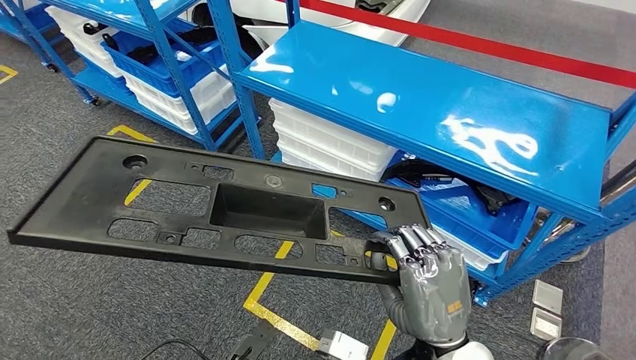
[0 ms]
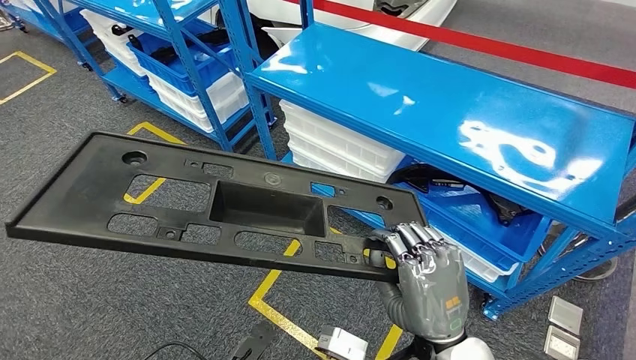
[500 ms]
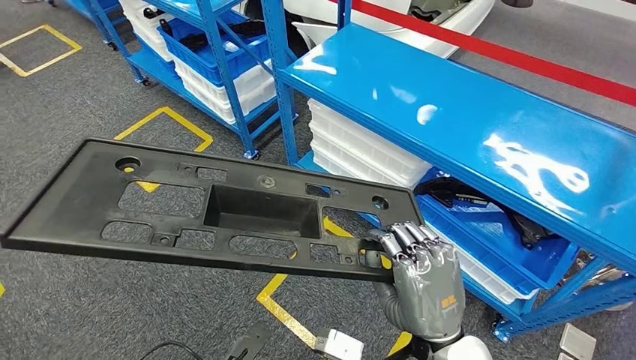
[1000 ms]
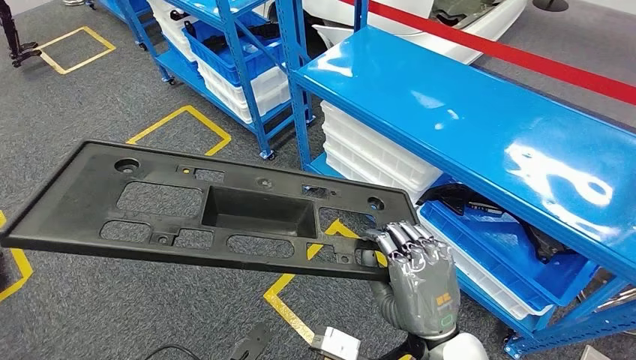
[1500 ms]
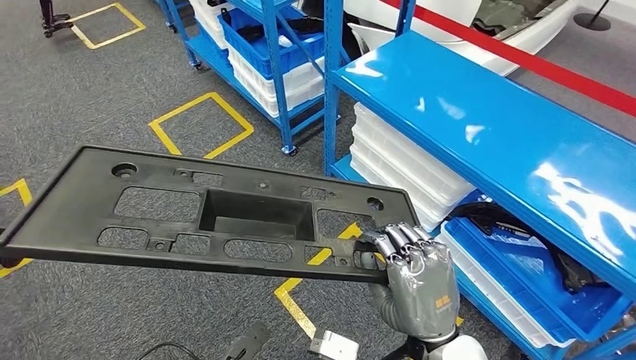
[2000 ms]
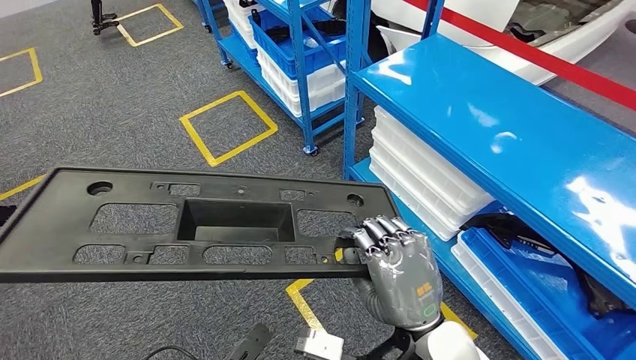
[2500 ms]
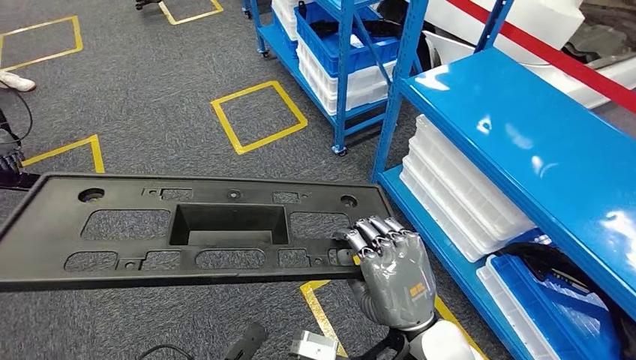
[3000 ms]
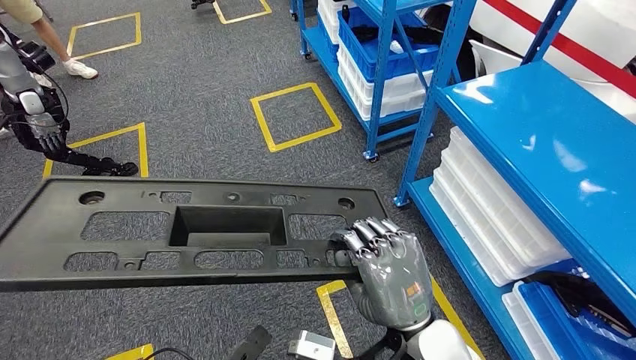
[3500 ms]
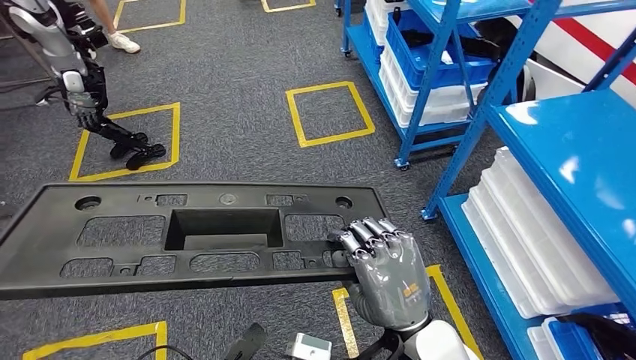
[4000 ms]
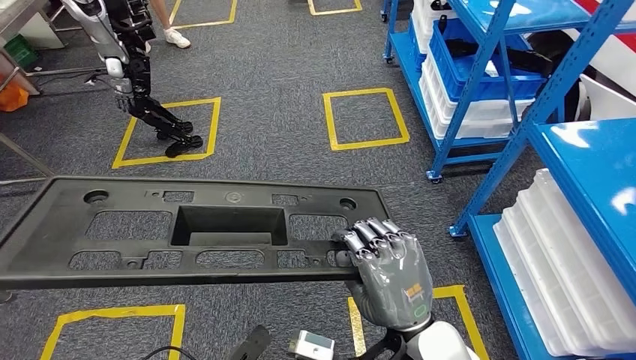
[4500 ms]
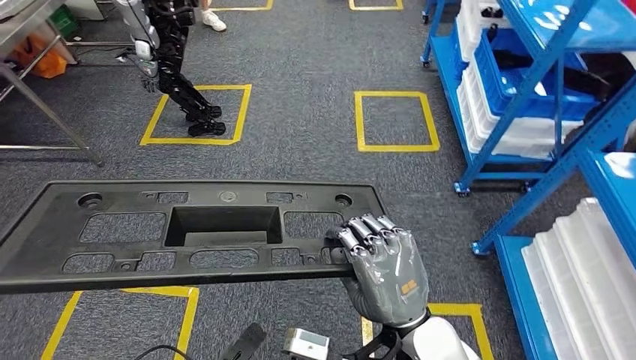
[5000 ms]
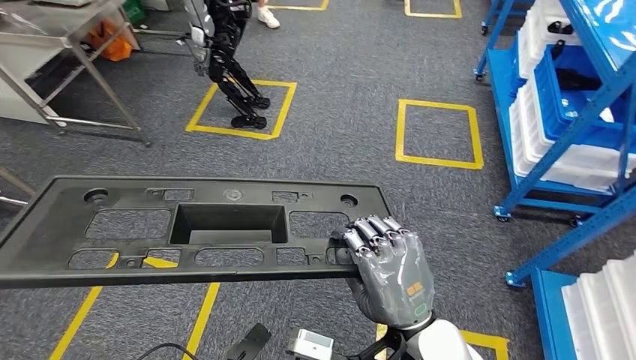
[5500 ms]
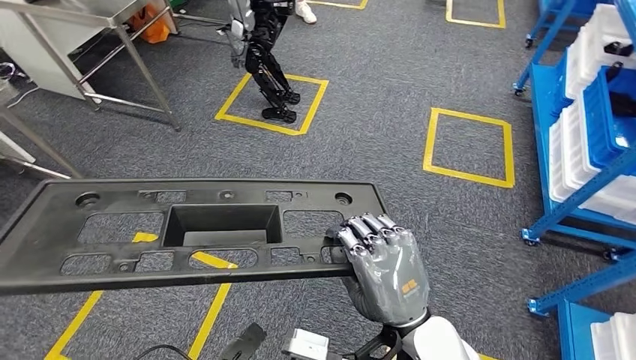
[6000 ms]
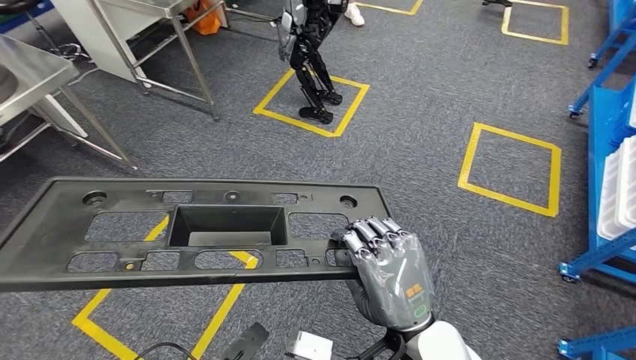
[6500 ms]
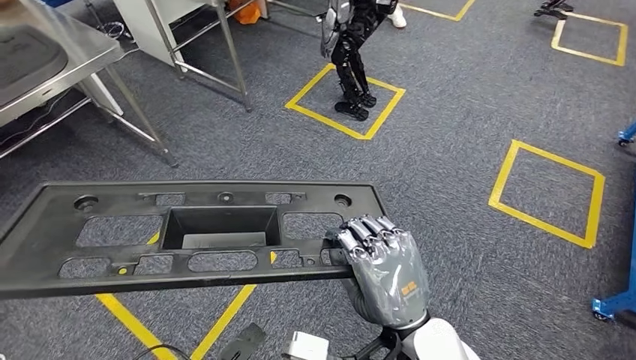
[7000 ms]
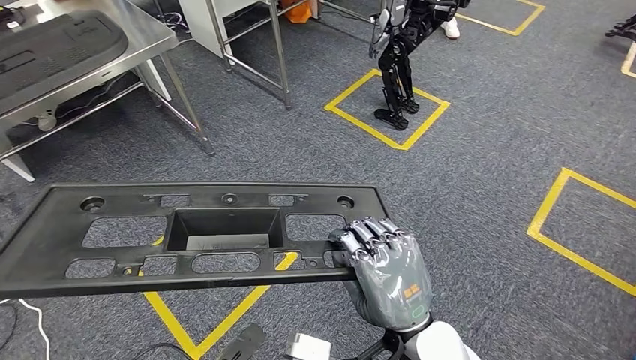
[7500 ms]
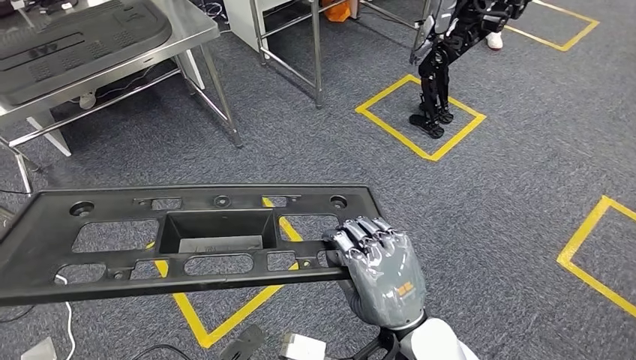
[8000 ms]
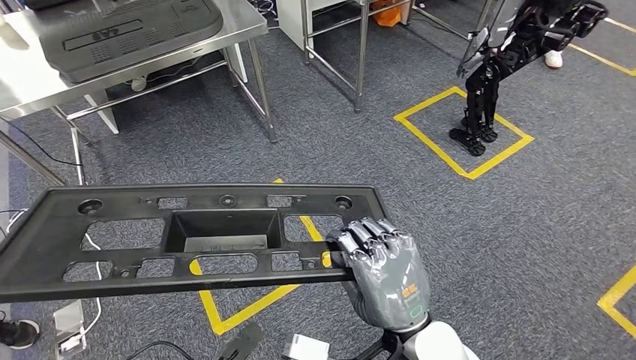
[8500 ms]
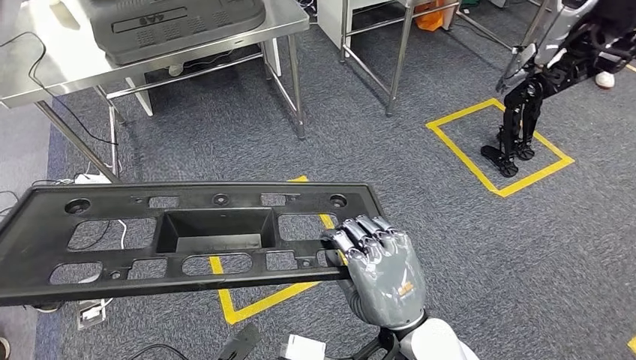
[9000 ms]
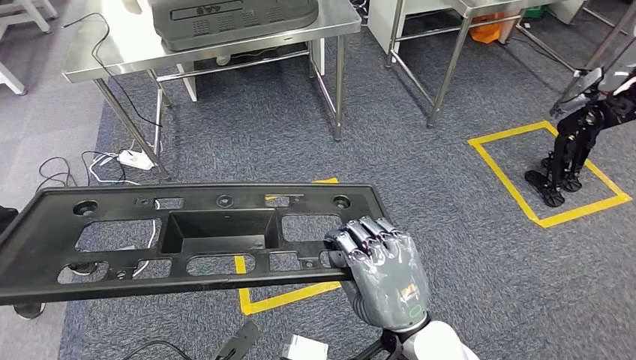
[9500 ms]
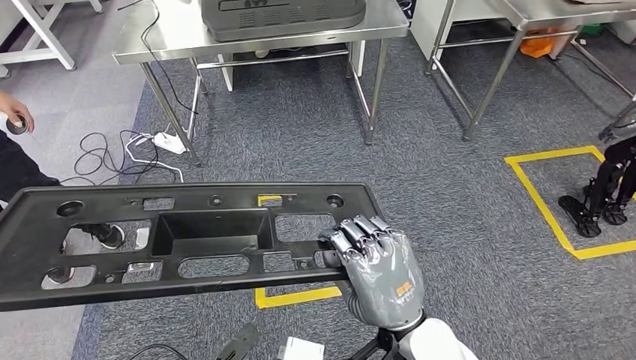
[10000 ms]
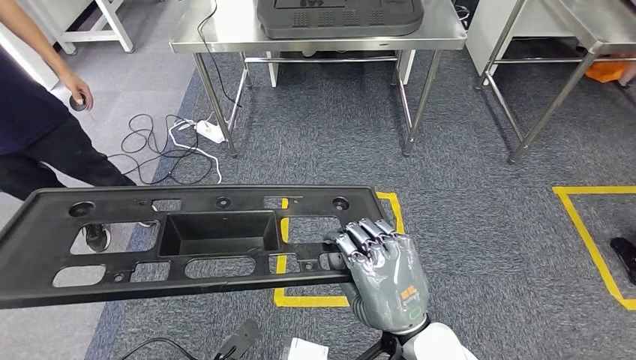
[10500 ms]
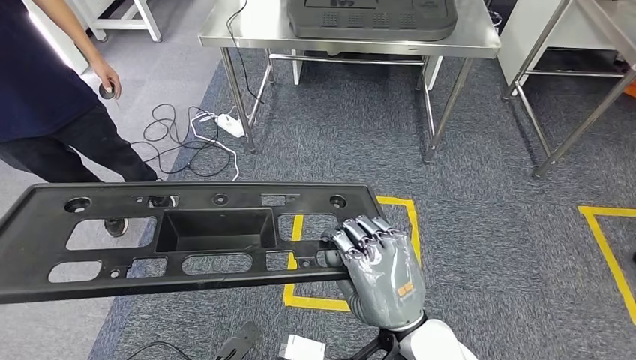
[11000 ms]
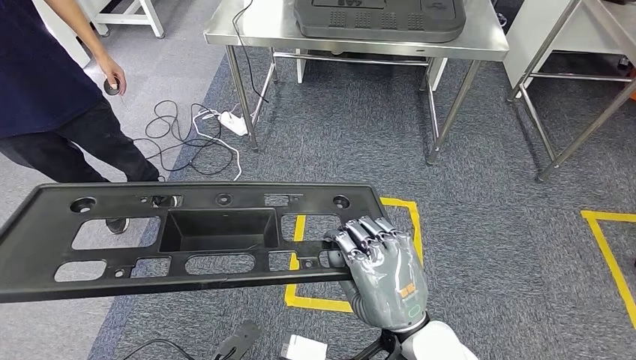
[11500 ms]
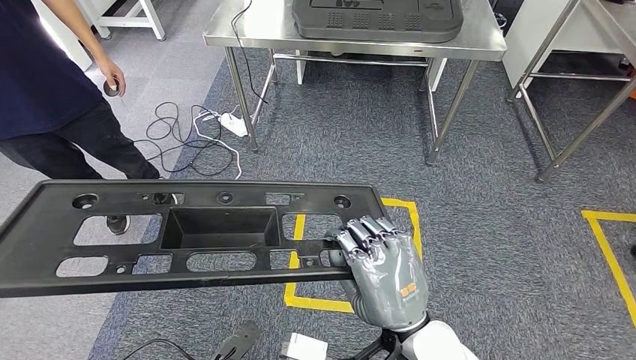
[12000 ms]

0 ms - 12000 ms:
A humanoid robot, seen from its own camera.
Step, 0 ms - 9500 ms: Move the large material to the workbench.

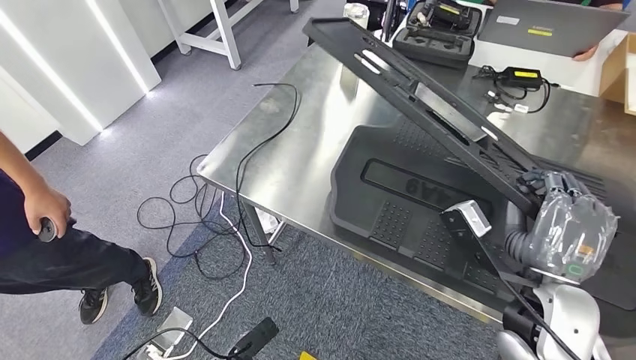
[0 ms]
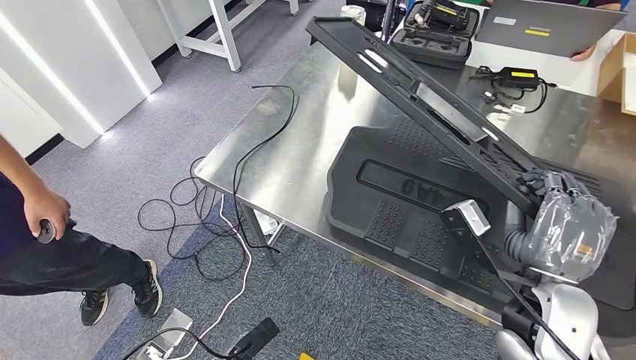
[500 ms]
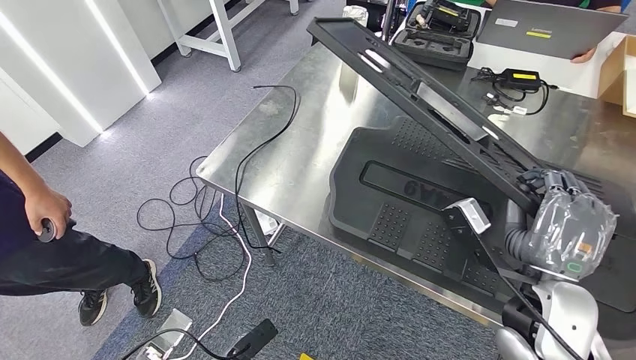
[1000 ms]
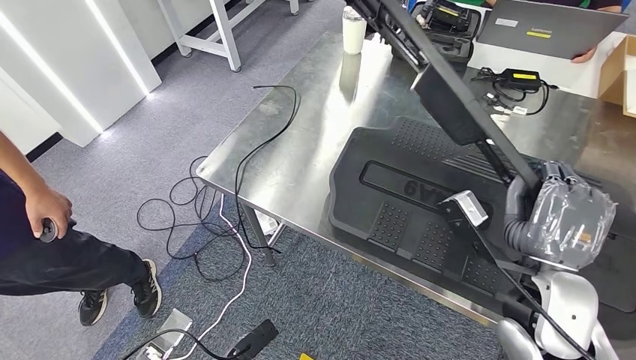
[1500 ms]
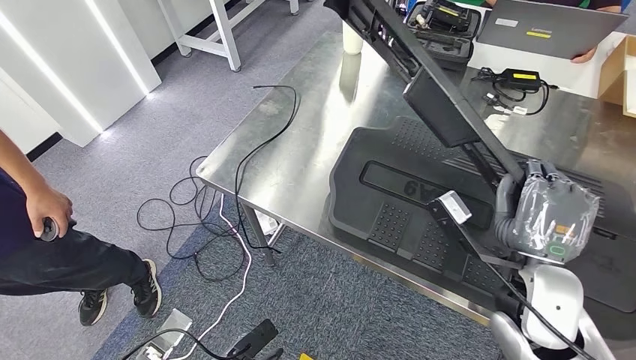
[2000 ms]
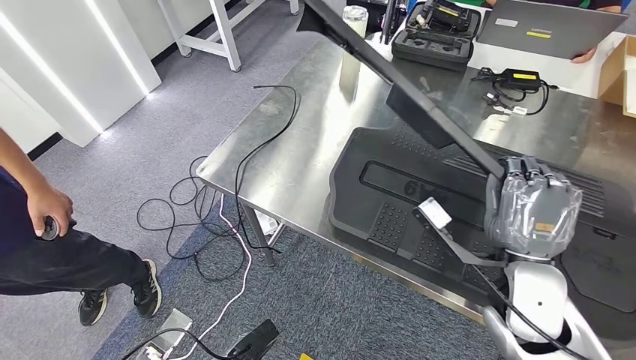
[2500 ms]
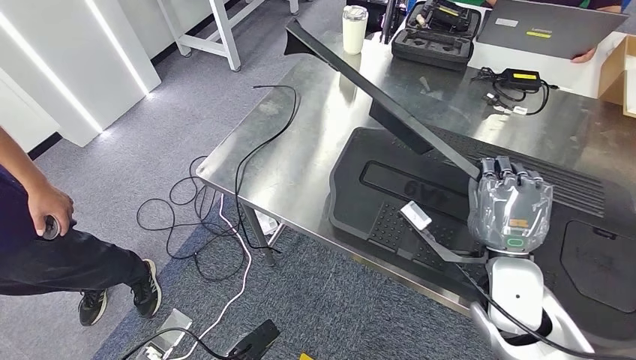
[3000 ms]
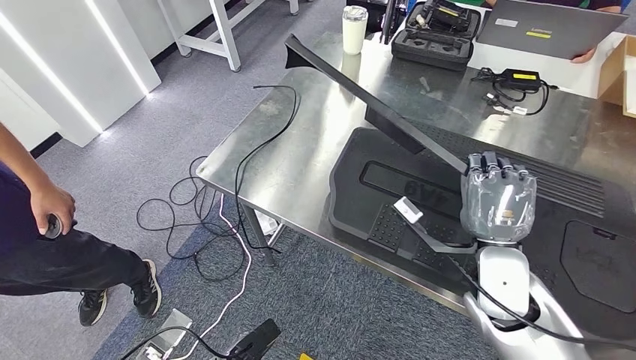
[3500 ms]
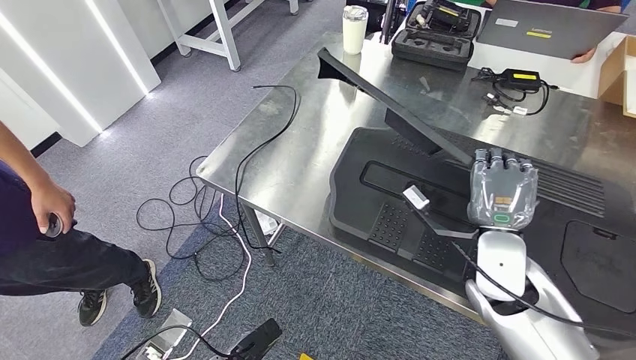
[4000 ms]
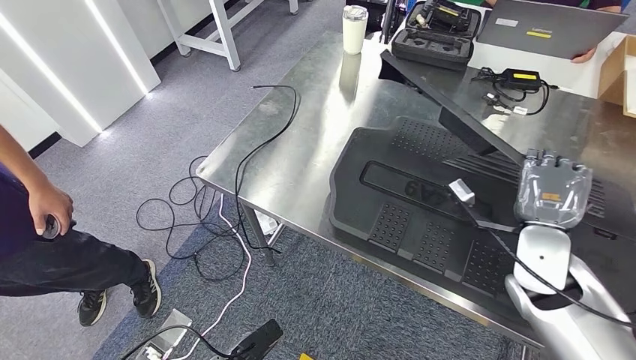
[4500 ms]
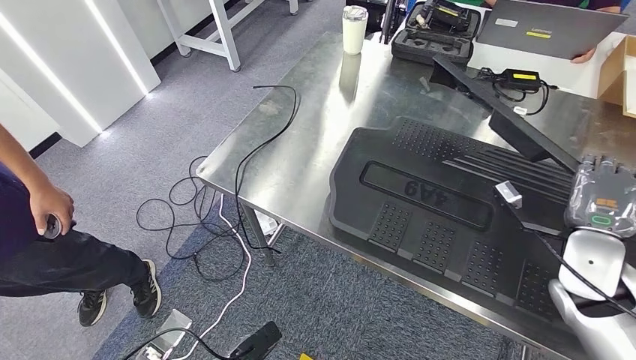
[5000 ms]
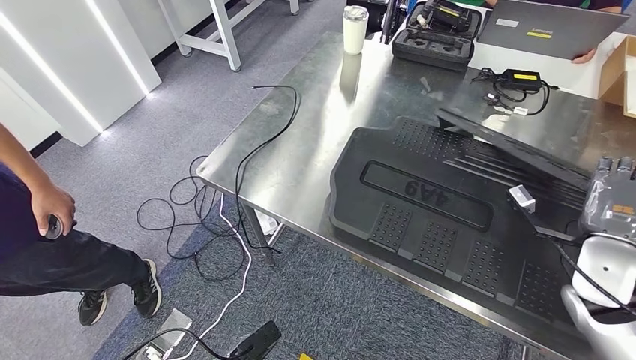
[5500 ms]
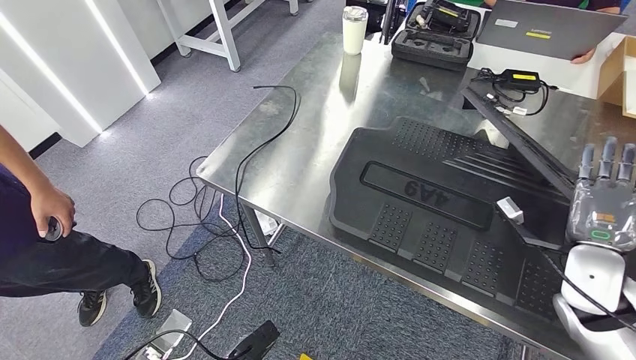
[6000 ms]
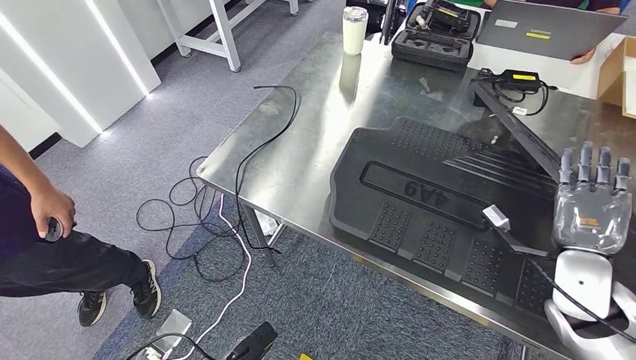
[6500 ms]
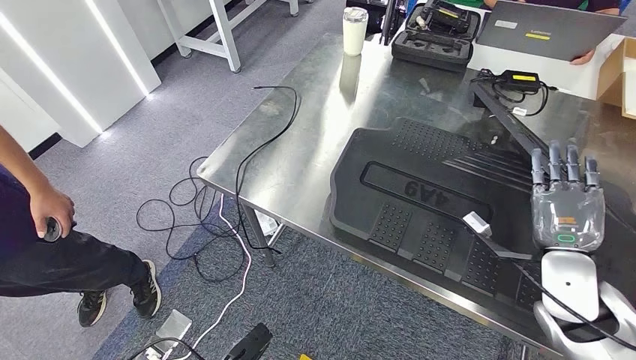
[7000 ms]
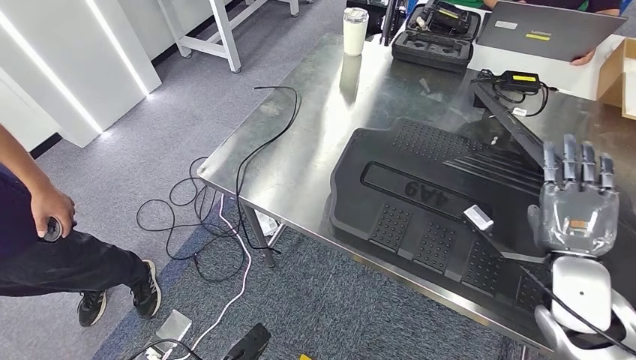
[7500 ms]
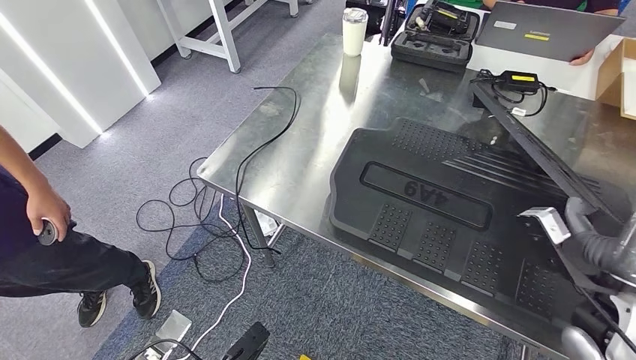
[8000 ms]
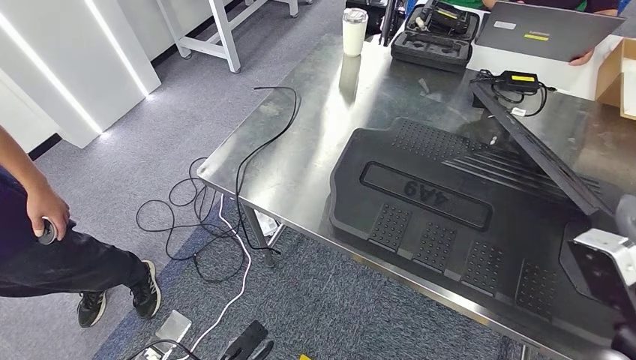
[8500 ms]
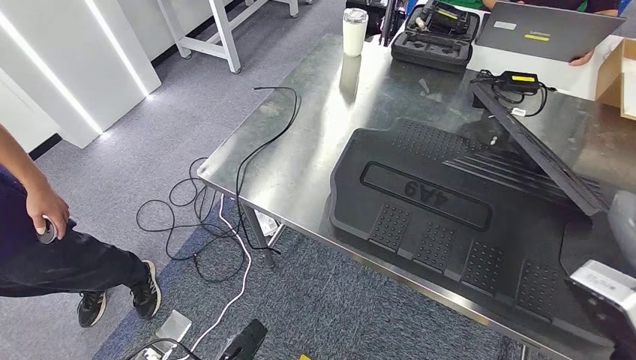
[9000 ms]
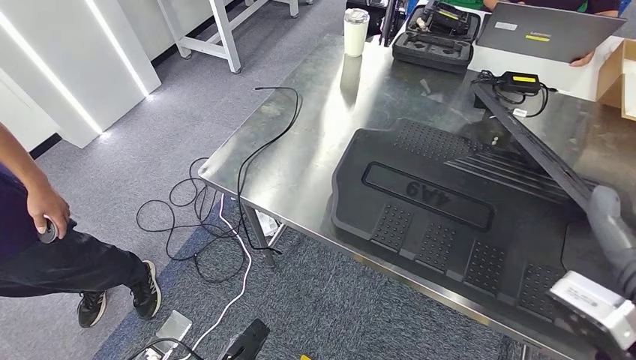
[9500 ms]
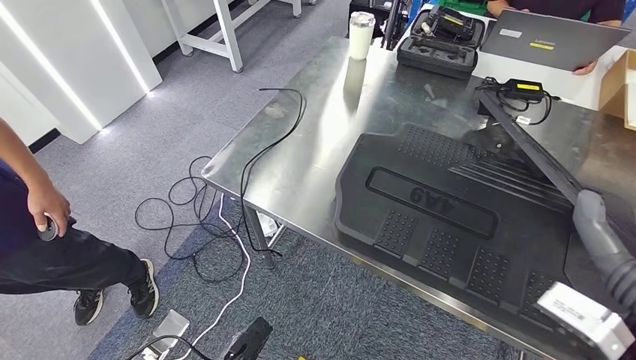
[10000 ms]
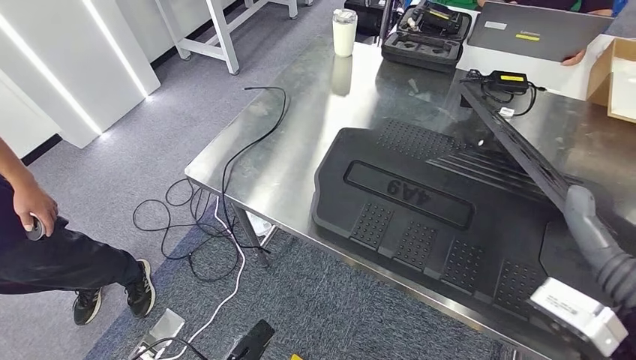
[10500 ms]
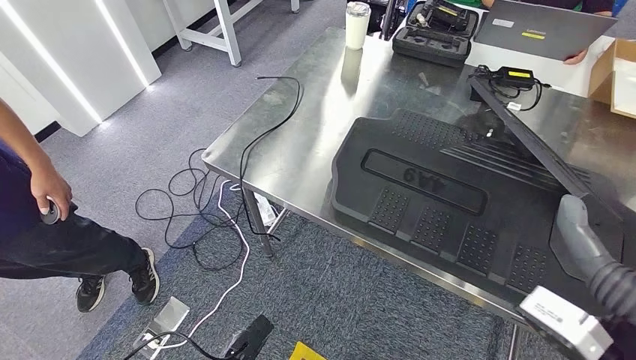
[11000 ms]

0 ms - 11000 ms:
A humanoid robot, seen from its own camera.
0 ms - 2000 ms: The hands make only small movements.
2000 ms - 3500 ms: The hands stay close to where they were, moving slightly.
3500 ms - 5500 ms: The right hand goes some 15 cm to the right.
5500 ms - 7500 ms: The right hand changes place by approximately 5 cm.
7500 ms - 9000 ms: The right hand goes roughly 15 cm backward and upward.
